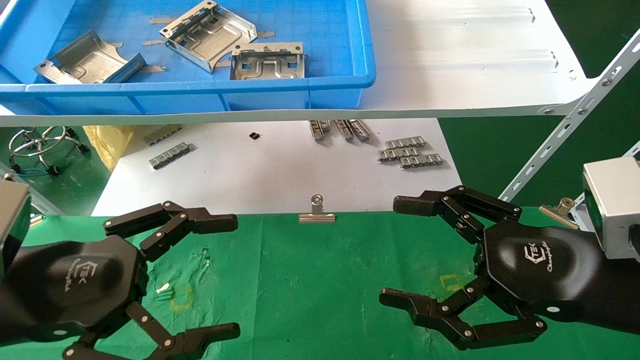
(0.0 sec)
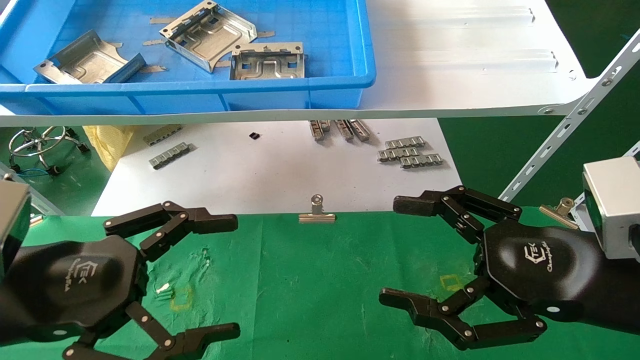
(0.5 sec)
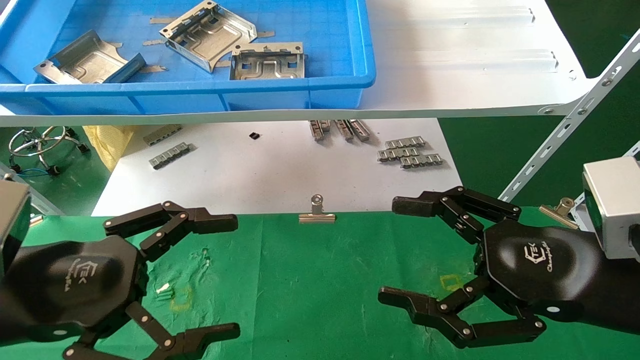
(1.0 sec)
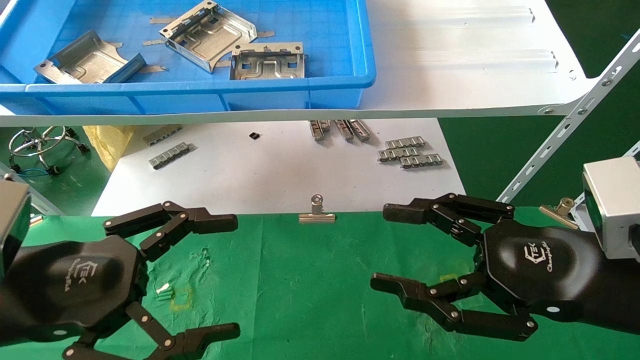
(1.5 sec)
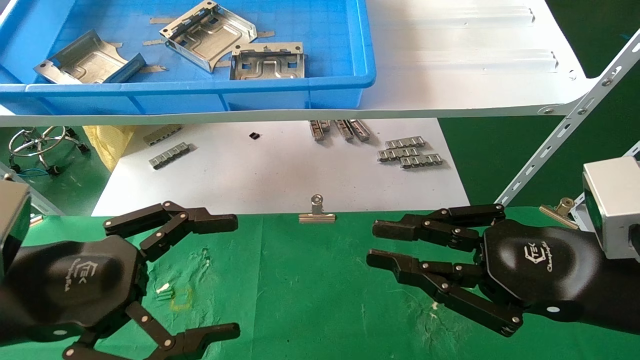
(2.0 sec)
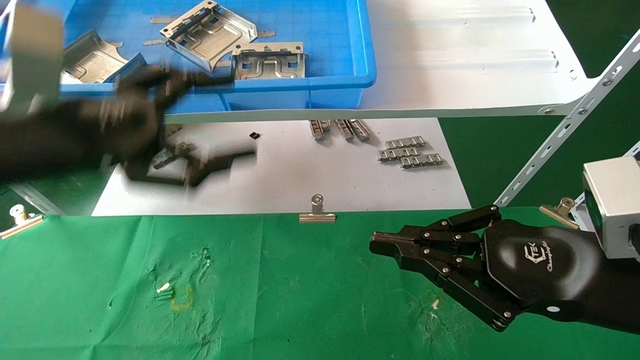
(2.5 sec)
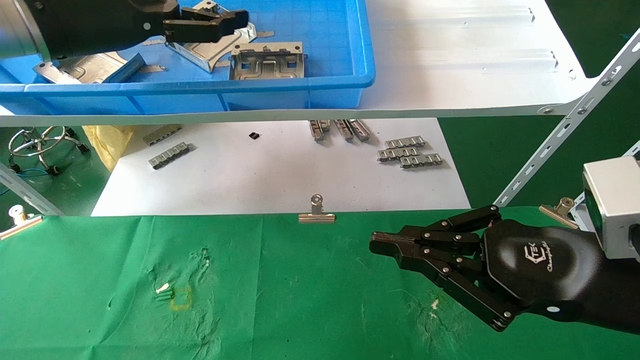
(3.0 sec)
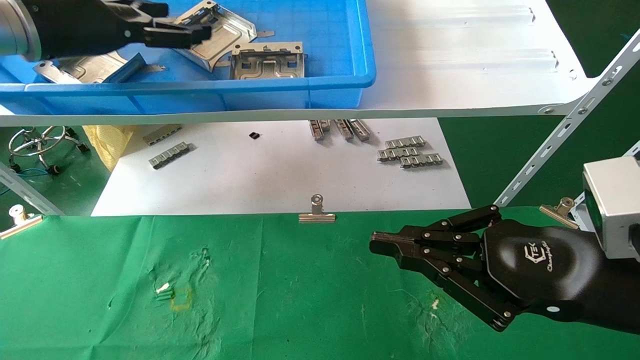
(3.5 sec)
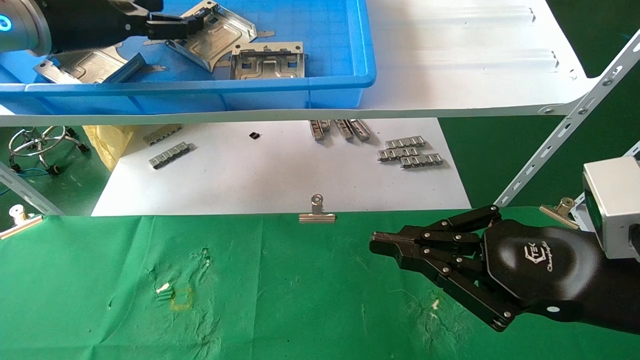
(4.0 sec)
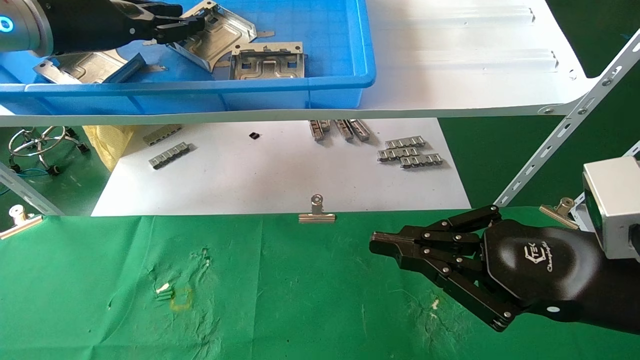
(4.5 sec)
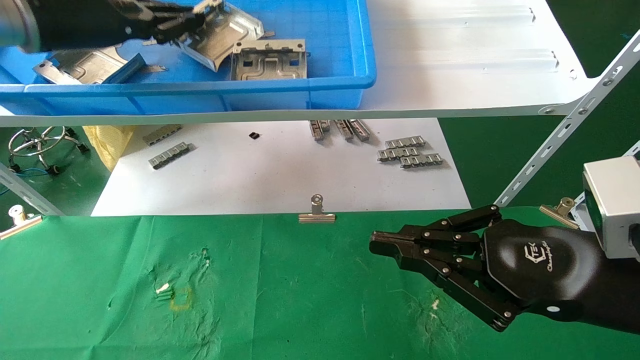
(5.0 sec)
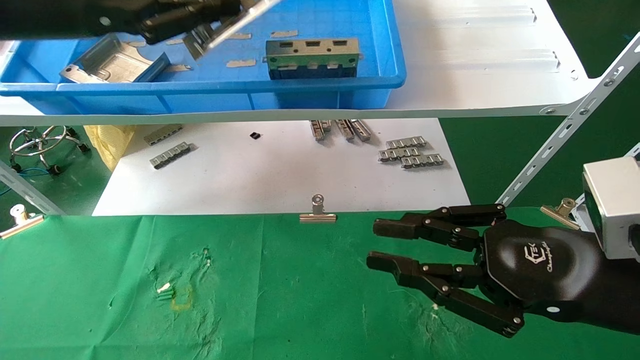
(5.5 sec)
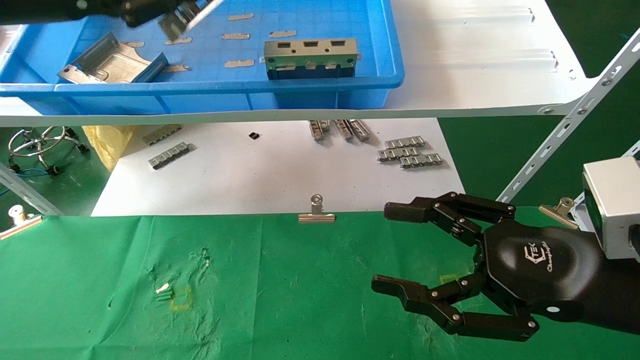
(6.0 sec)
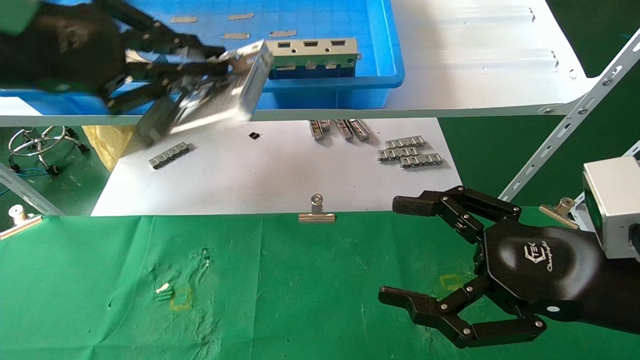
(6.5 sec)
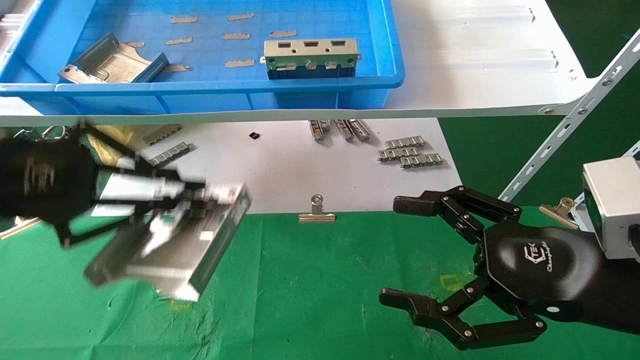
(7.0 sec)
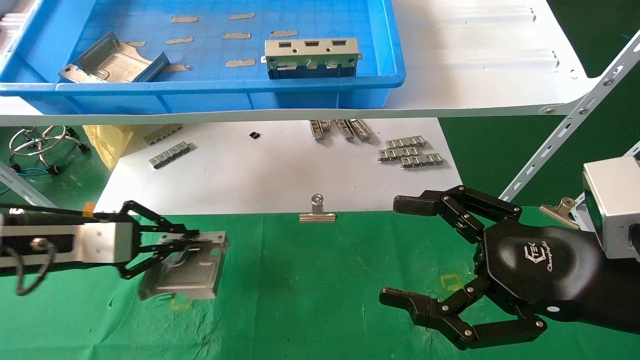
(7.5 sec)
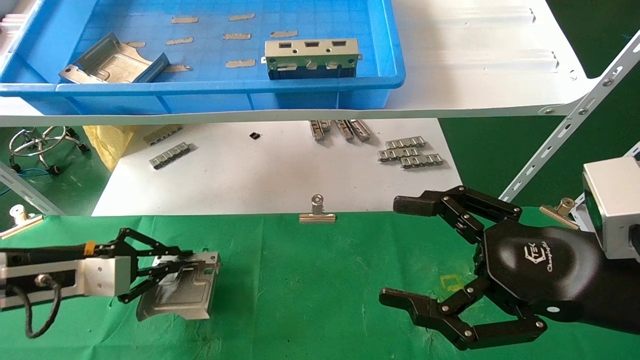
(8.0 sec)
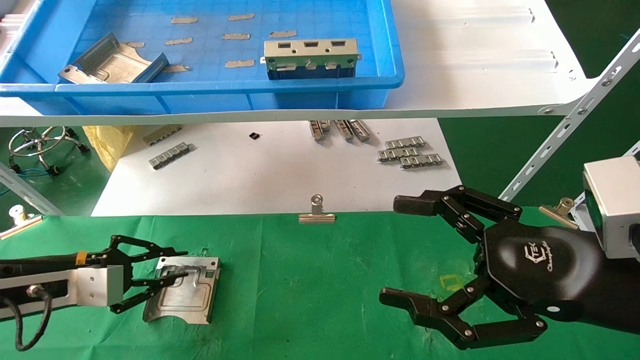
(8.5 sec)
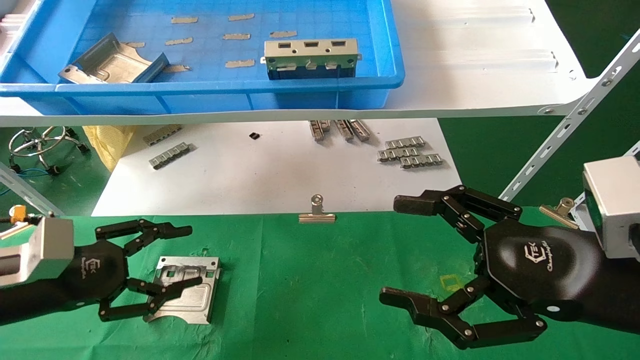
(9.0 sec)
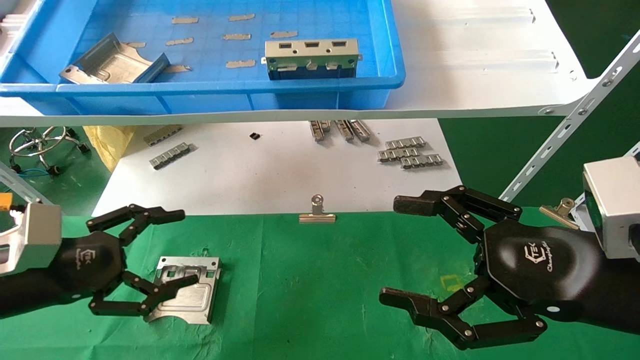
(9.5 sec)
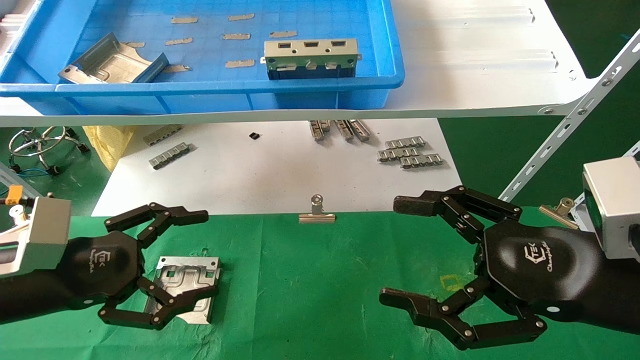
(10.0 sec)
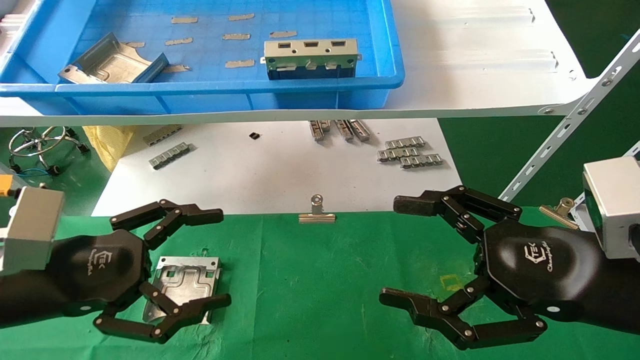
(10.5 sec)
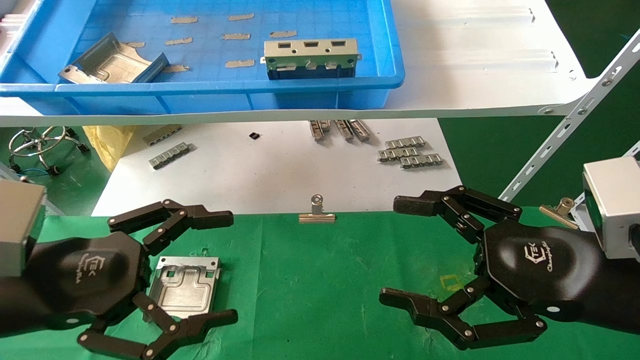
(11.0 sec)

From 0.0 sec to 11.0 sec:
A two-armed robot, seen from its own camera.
Task of the whole recording: use the mechanical arm to pick up the parts and place them on the table.
Step, from 1.5 sec to 5.5 sec: Pick up the hard drive bracket from the feeding area.
Step, from 6.0 sec to 8.5 sec: Place the hard drive bracket into the box.
From 0.0 sec to 2.0 sec: The right gripper closes up.
From 2.0 sec to 3.5 sec: The left gripper heads upward and forward, covering approximately 30 cm.
From 3.5 sec to 5.5 sec: The left gripper heads backward, covering roughly 10 cm, and closes up.
From 5.5 sec to 7.5 sec: The right gripper opens. The left gripper travels downward by some 25 cm.
From 7.5 sec to 9.0 sec: The left gripper heads downward, covering some 5 cm, and opens.
From 9.0 sec to 11.0 sec: The left gripper goes about 10 cm to the right, backward and upward, and opens up.

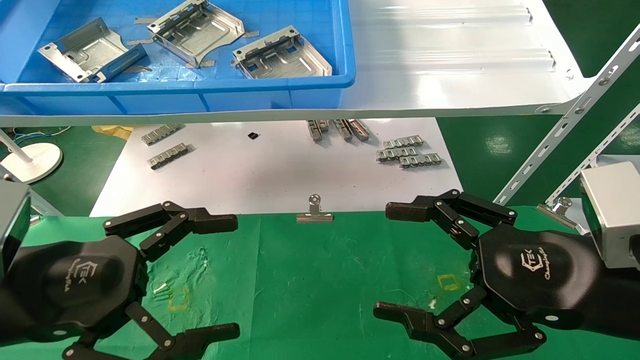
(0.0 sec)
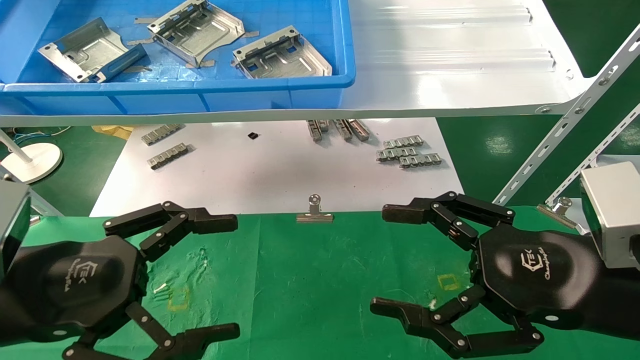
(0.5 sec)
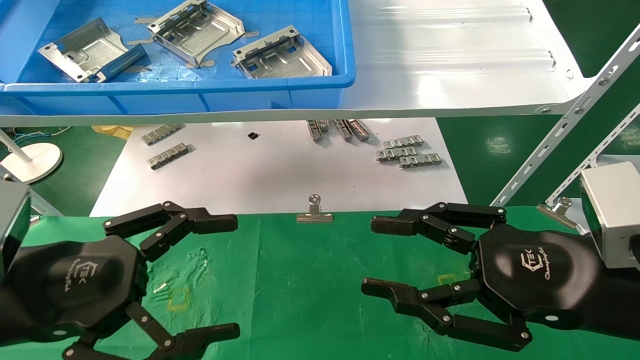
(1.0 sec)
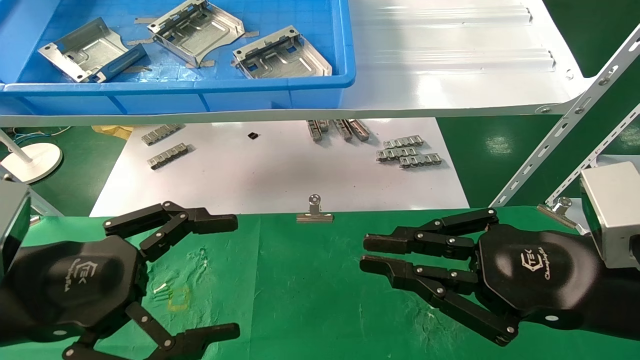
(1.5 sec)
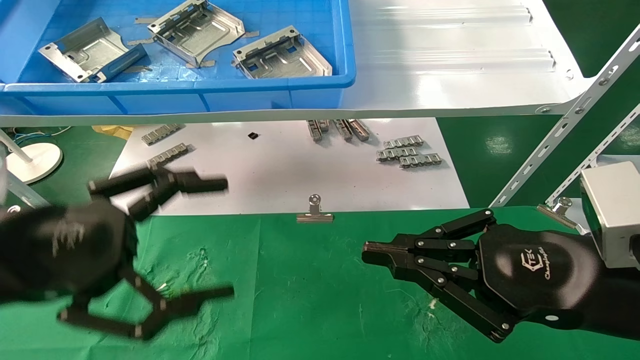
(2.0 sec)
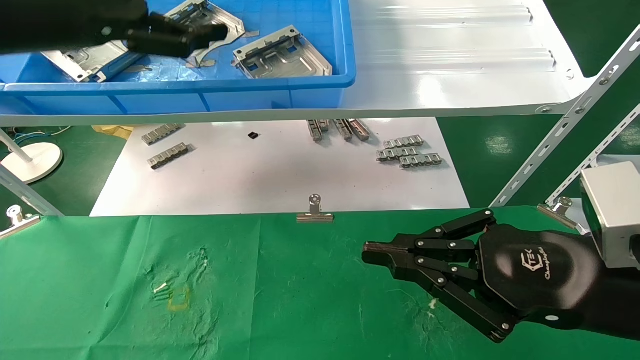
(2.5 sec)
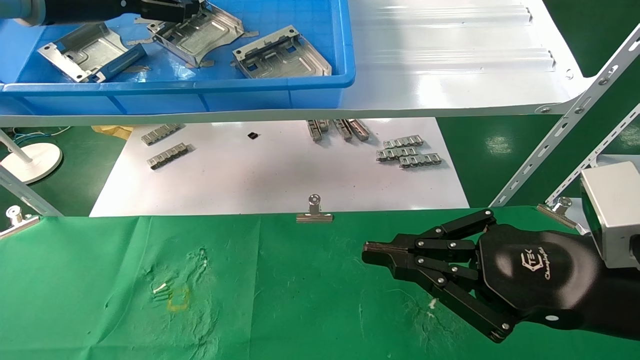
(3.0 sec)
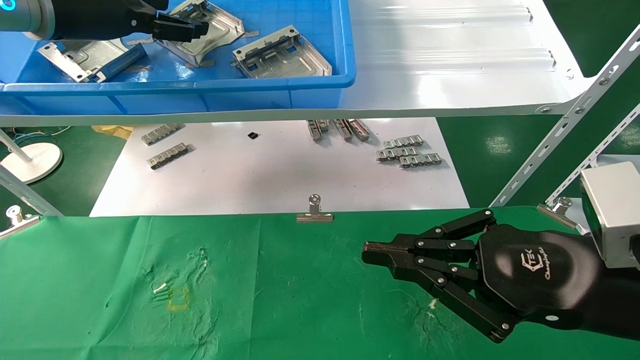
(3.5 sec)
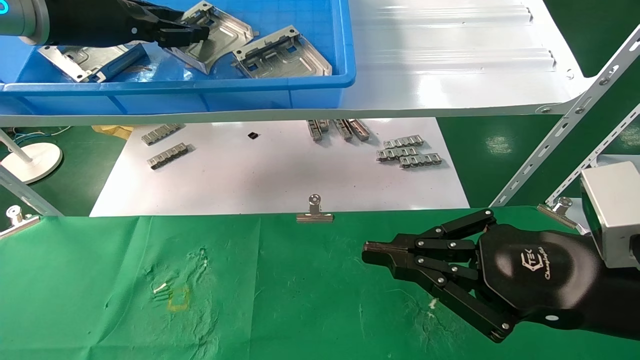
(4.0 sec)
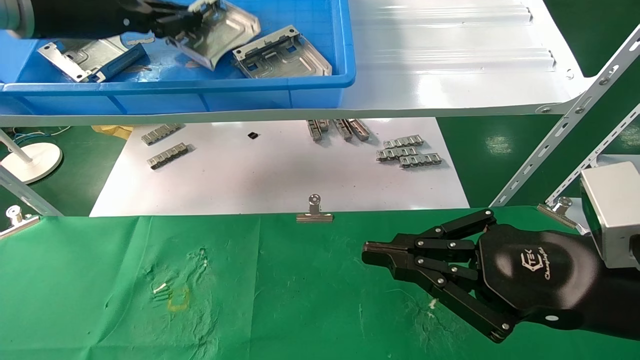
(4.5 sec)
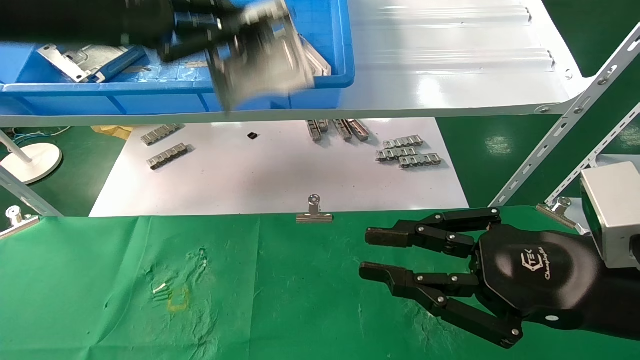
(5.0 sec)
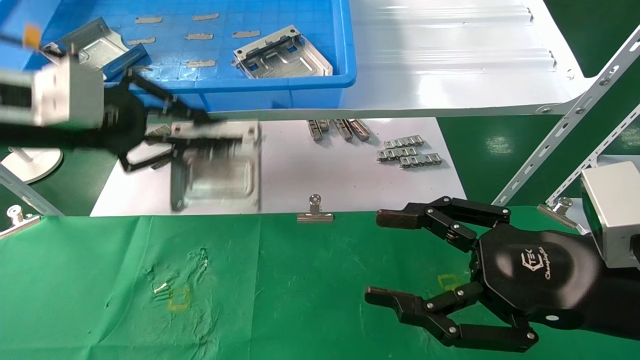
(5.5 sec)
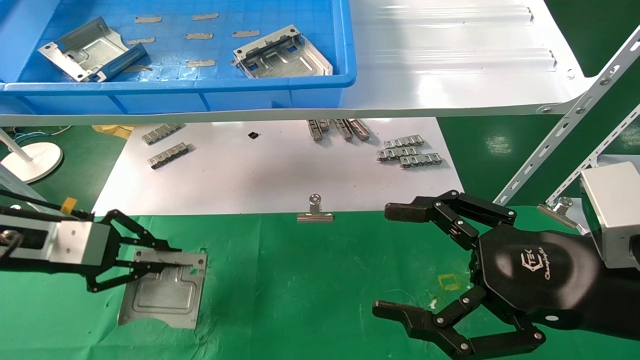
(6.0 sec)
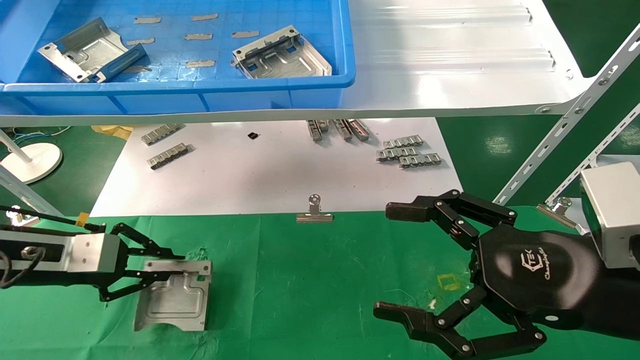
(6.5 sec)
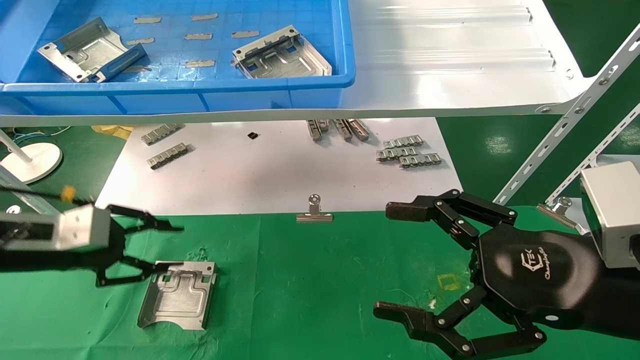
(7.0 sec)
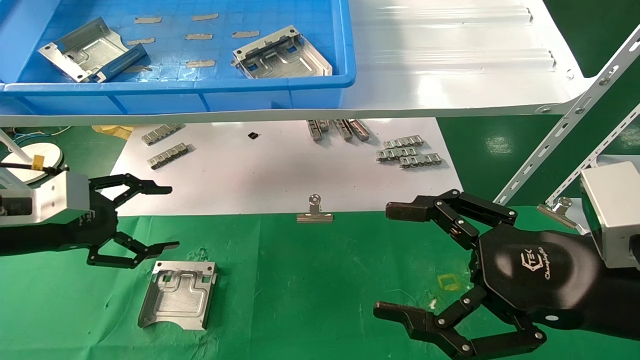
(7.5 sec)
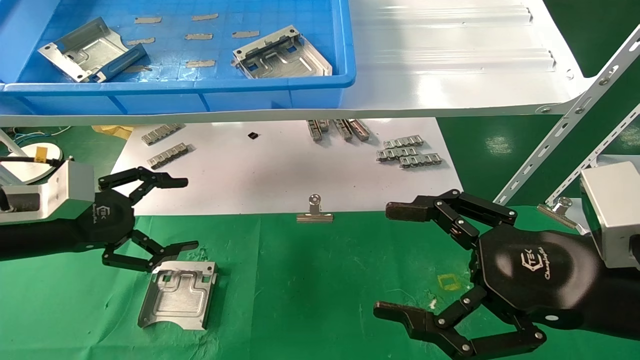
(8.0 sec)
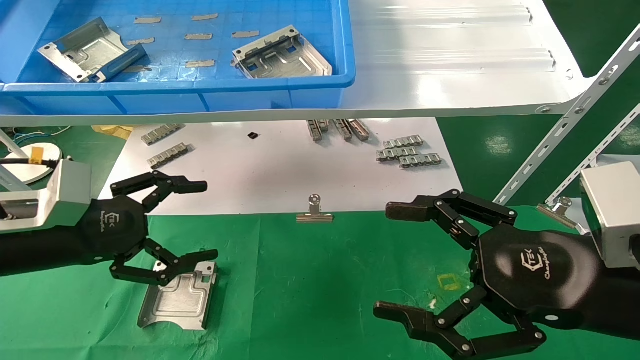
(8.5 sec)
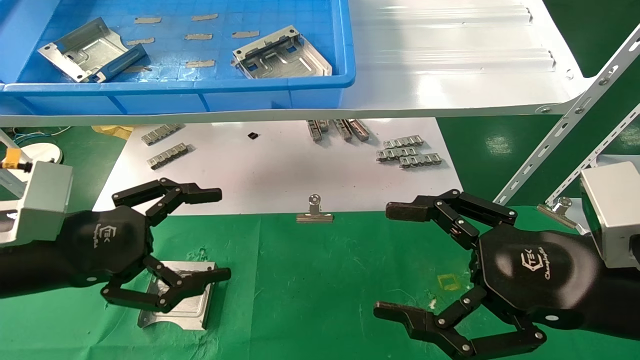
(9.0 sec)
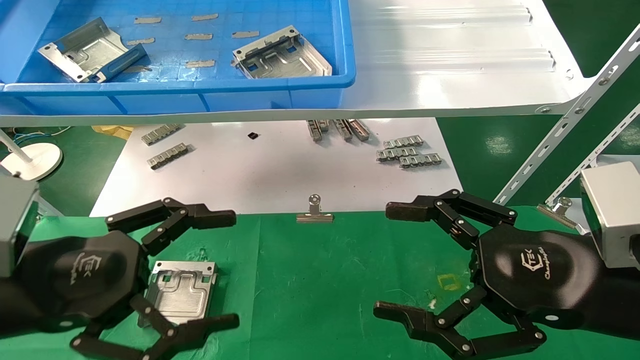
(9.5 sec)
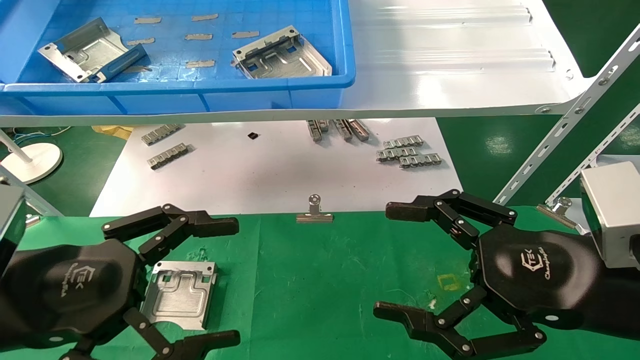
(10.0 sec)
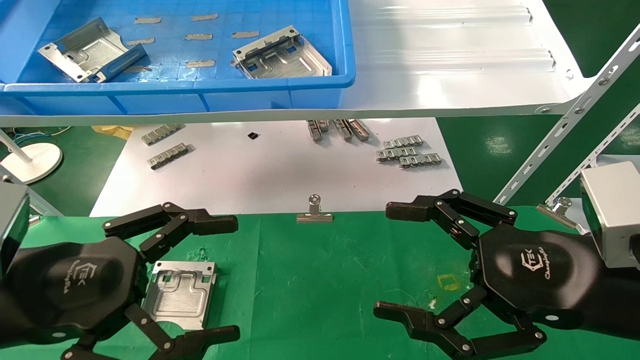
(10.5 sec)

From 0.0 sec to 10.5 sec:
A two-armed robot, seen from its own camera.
Task of the whole recording: use the mechanical arm to pick up the parts and place them on the table.
Step, from 1.0 sec to 4.5 sec: Pick up the hard drive bracket from the feeding area.
Step, from 5.0 sec to 8.0 sec: Place the hard drive bracket into the box.
From 0.0 sec to 2.0 sec: The right gripper closes, while the left gripper travels upward by some 5 cm.
From 2.0 sec to 4.0 sec: The left gripper moves forward and upward, roughly 25 cm, and closes.
From 4.0 sec to 6.5 sec: The right gripper opens. The left gripper heads downward, covering about 25 cm, and closes up.
From 6.5 sec to 8.5 sec: The left gripper changes place by some 5 cm, and opens up.
From 8.5 sec to 10.5 sec: The left gripper goes approximately 10 cm backward and to the right.
